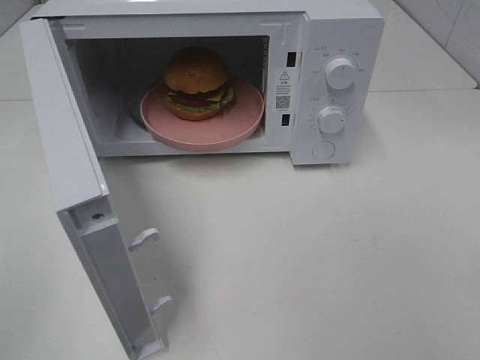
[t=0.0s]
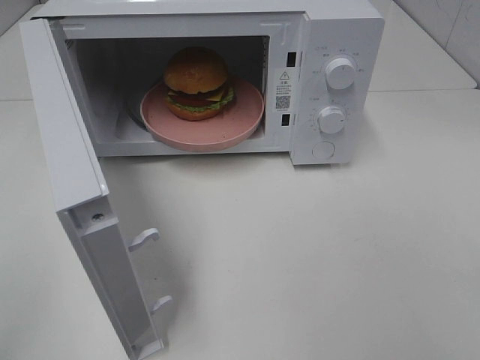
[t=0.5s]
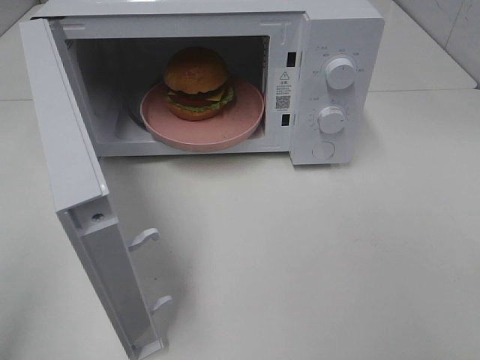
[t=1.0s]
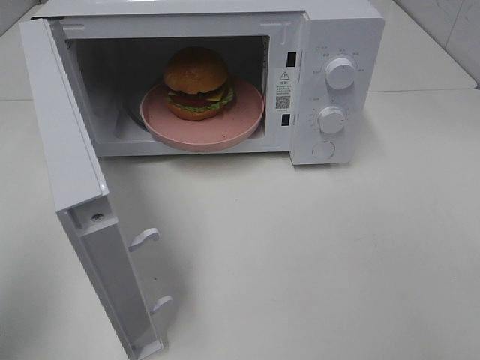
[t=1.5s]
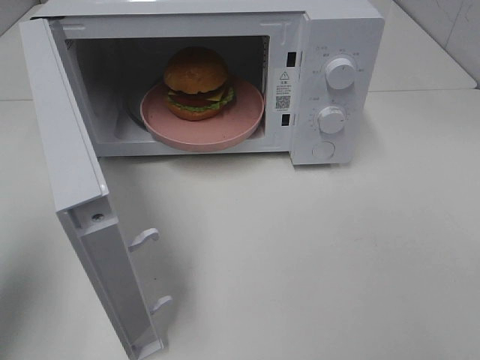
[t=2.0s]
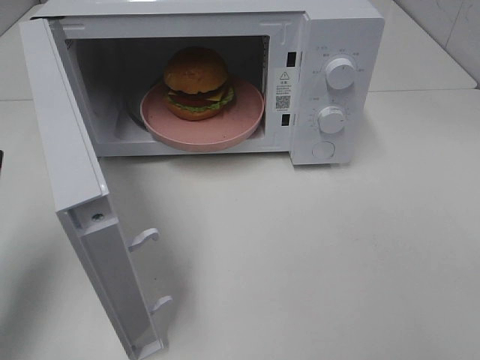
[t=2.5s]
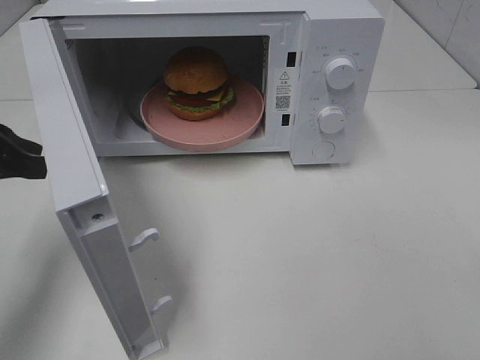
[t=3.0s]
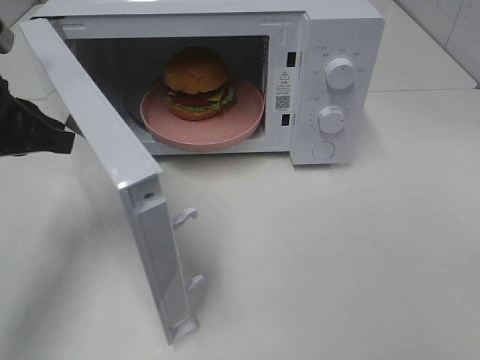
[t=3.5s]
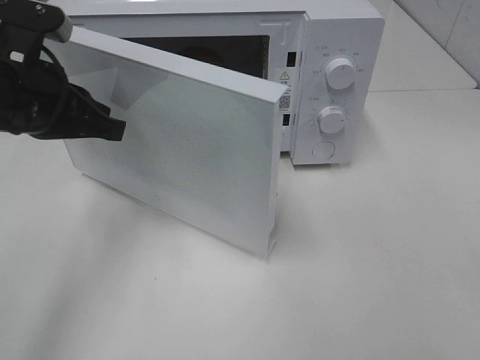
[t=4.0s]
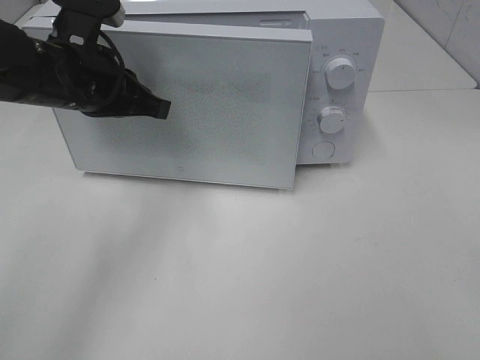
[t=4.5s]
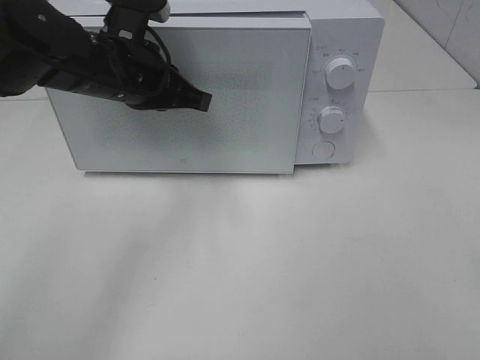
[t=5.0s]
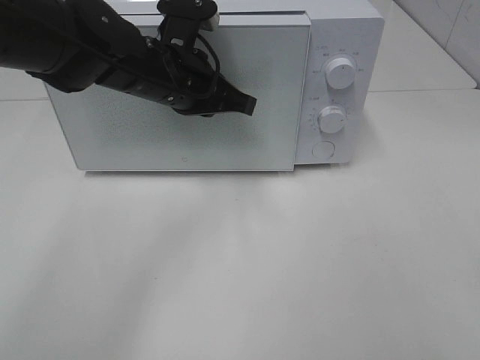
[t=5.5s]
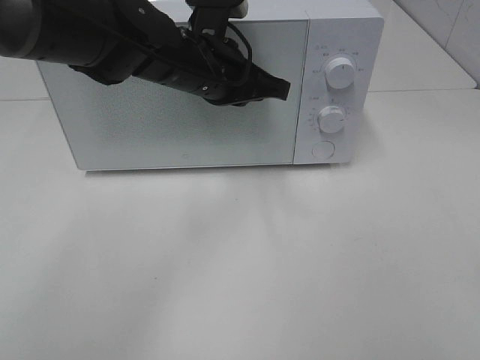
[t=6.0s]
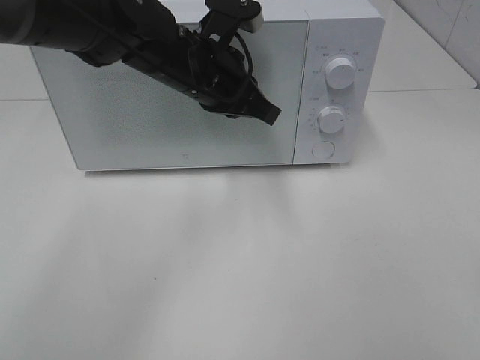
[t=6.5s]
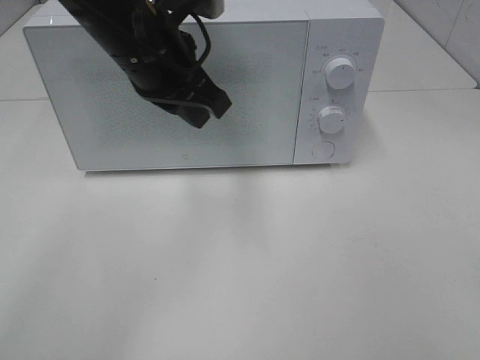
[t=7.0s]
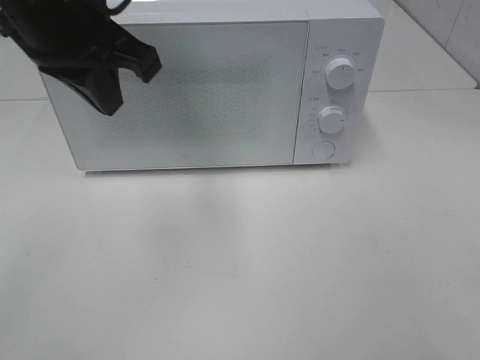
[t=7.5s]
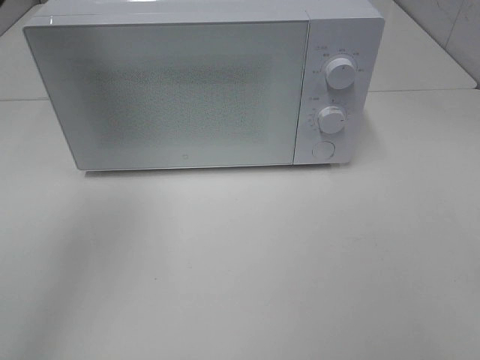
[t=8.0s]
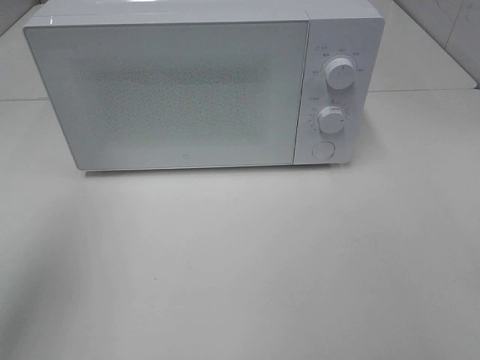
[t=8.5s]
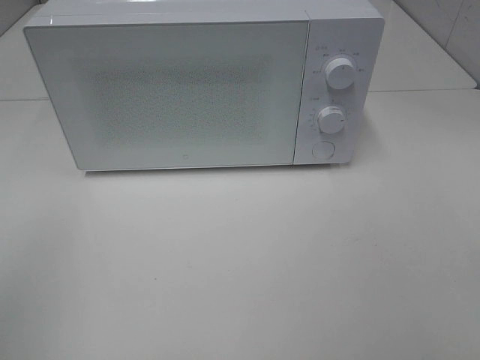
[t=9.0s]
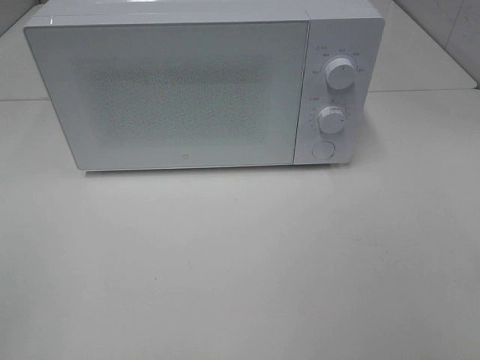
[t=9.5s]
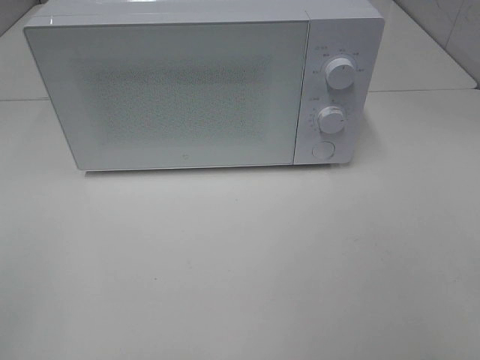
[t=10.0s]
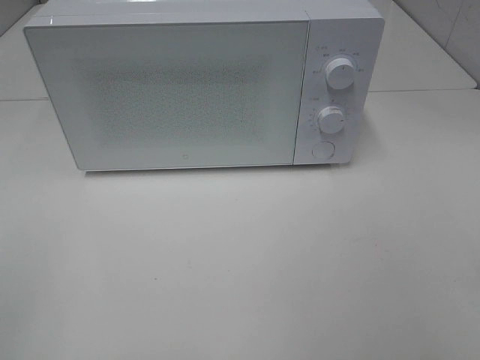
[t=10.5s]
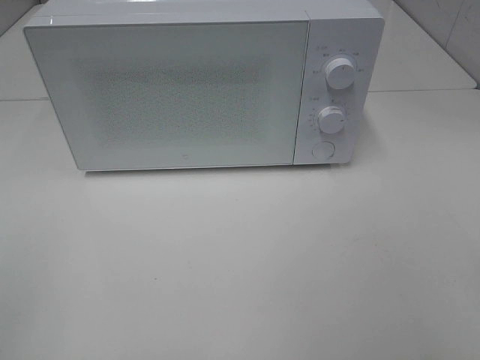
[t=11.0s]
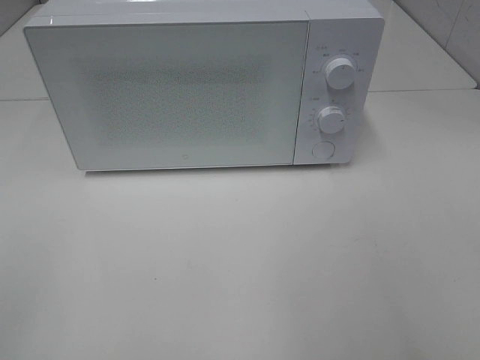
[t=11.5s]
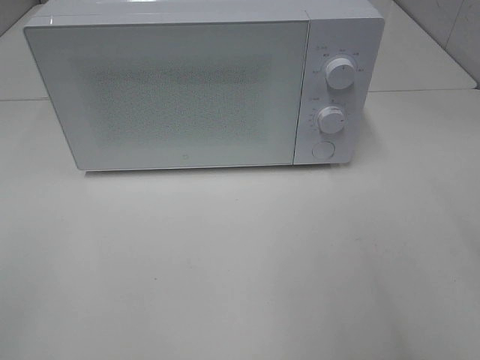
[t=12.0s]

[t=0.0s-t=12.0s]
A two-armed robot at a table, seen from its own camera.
Task of the whole recording: Heat the burger.
Step, t=0.0s to t=6.0s: Left hand: close the microwave door.
t=0.0s to t=2.0s: The left gripper shifts some 15 cm forward.
t=2.0s to t=4.0s: The left gripper goes about 15 cm forward and to the right.
t=4.0s to t=6.0s: The left gripper is displaced to the right and forward by approximately 20 cm.
t=6.0s to t=8.0s: The left gripper goes approximately 30 cm to the left, upward and backward.
t=8.0s to t=10.0s: The left gripper moves backward, about 25 cm.

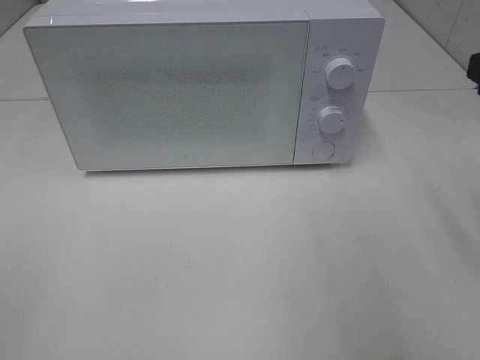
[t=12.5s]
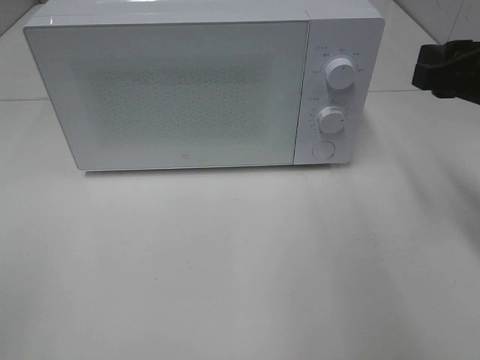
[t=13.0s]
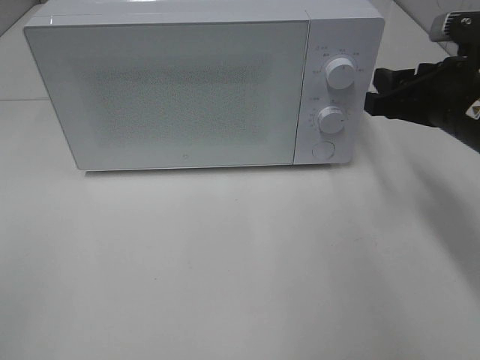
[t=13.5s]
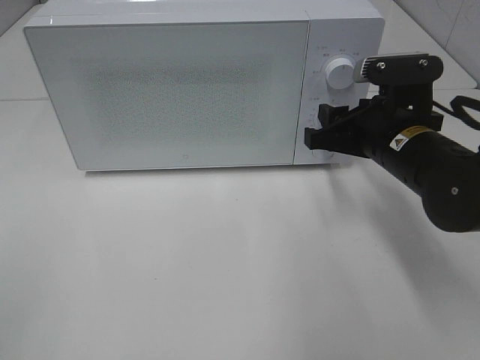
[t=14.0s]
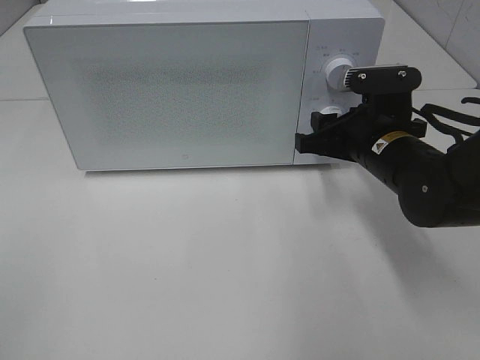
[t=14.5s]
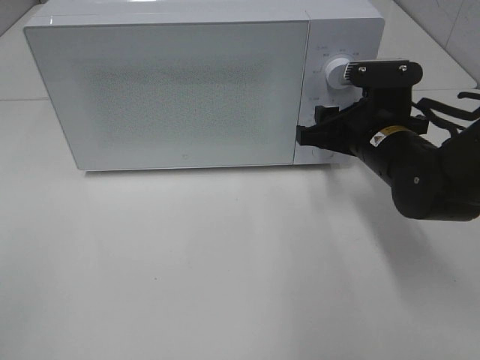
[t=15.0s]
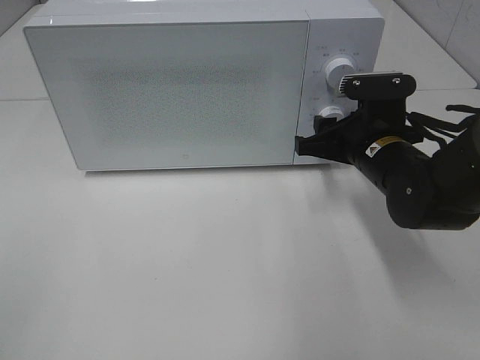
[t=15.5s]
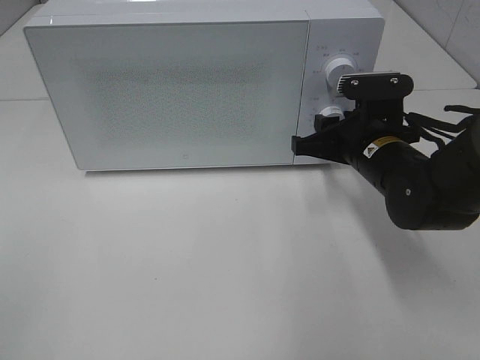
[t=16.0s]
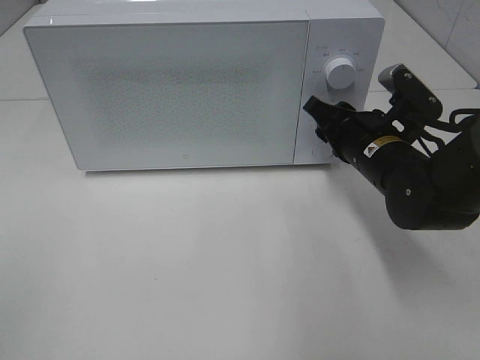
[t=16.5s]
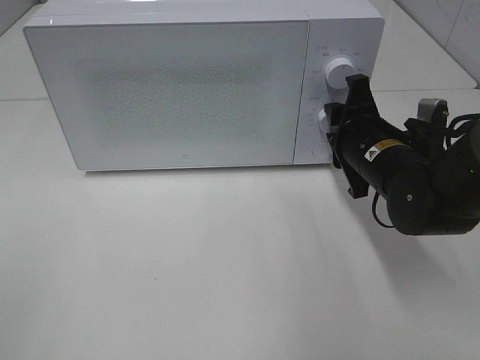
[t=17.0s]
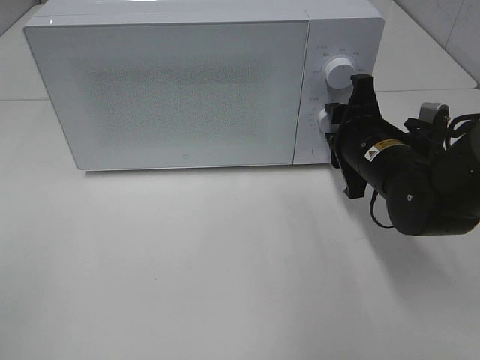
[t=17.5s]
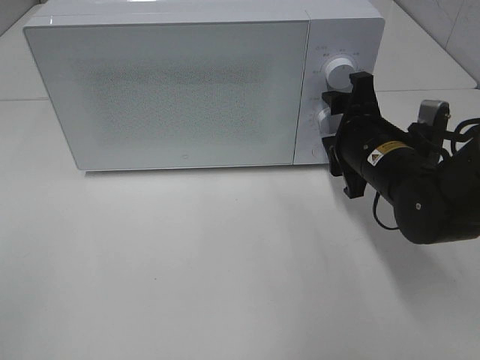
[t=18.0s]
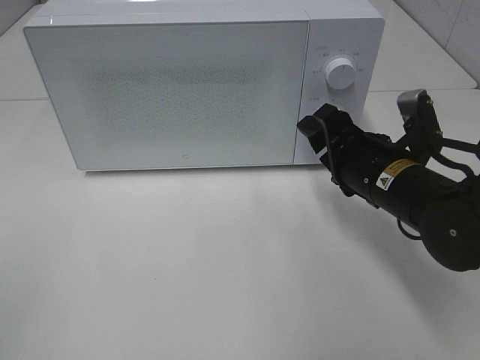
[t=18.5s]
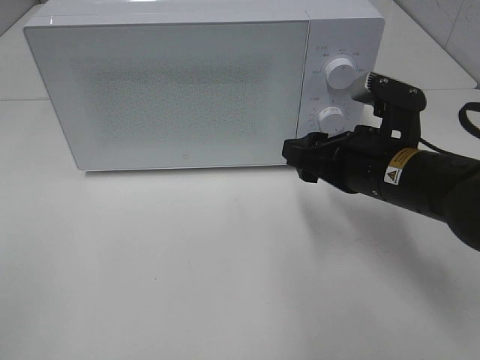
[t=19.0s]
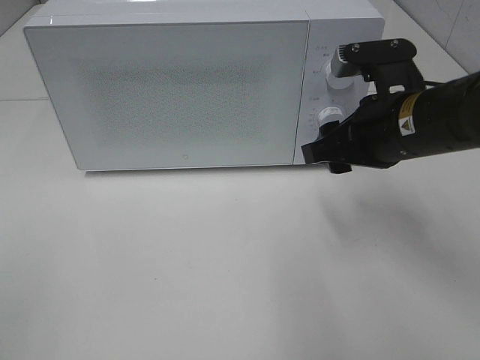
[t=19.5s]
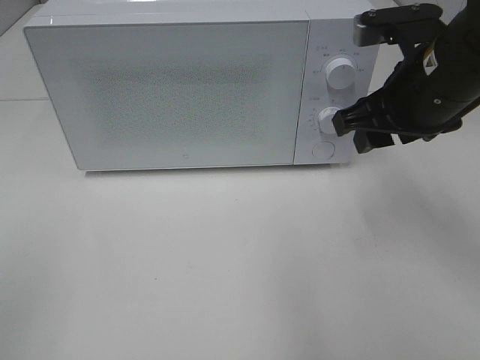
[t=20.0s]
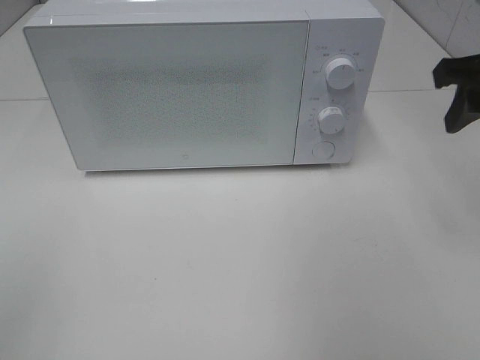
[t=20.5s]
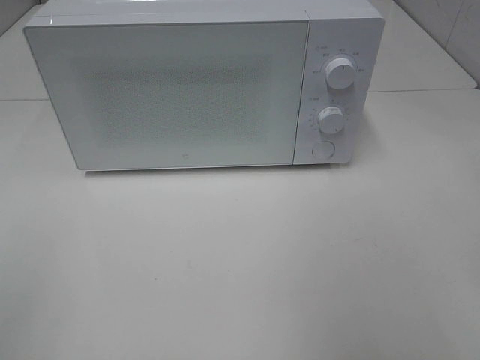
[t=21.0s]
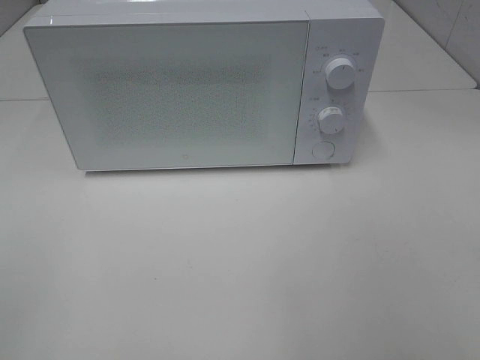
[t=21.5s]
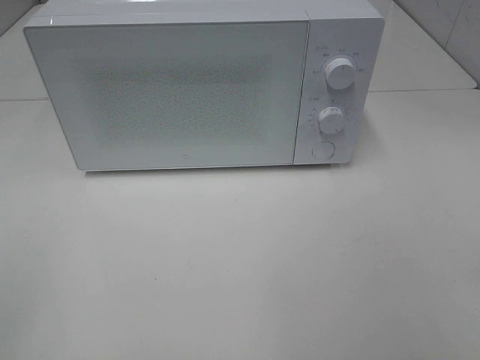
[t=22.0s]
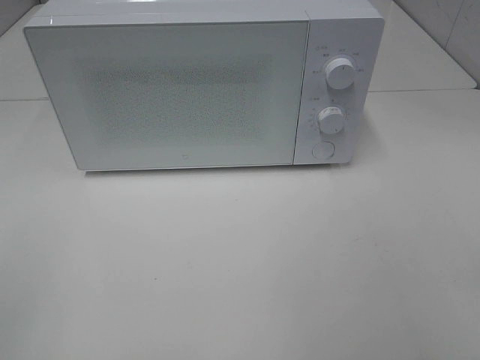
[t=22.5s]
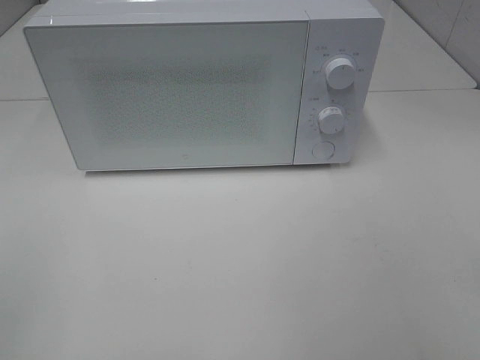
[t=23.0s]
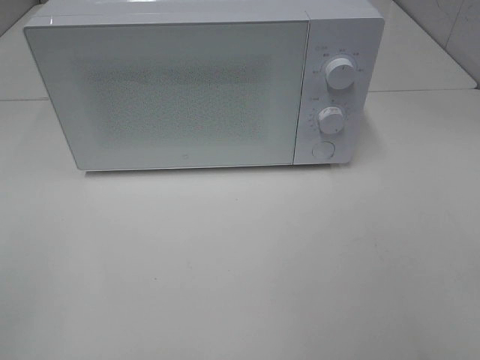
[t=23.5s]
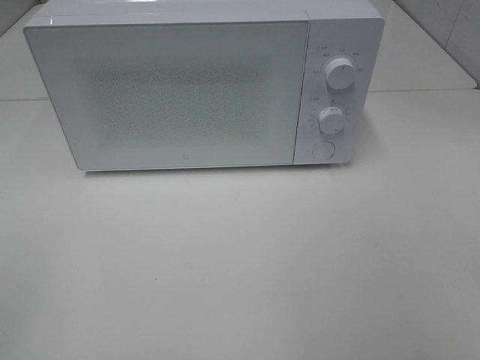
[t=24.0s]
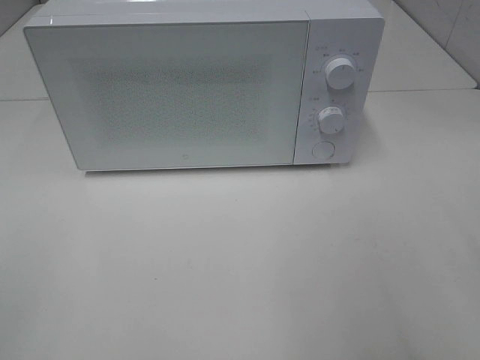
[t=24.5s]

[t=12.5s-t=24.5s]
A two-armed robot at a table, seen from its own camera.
Task of the whole recording: Heat the burger.
Step, t=12.5s to t=17.5s: Right hand: twist timer button.
t=12.5s to t=14.5s: The right gripper travels downward, forward and to the left by some 20 cm.
t=18.5s to t=20.5s: The right gripper moves upward and to the right, about 20 cm.
t=20.5s to t=22.5s: The right gripper travels backward by approximately 30 cm.

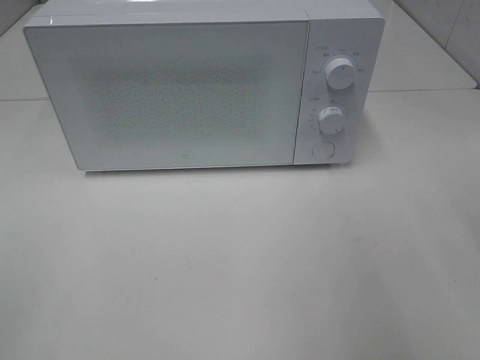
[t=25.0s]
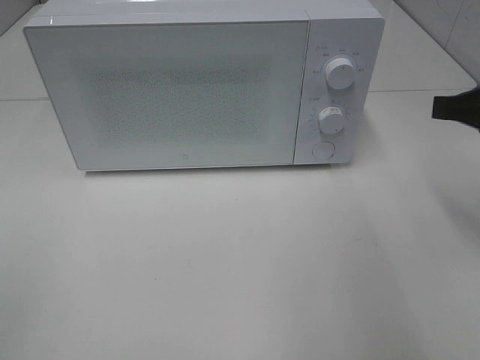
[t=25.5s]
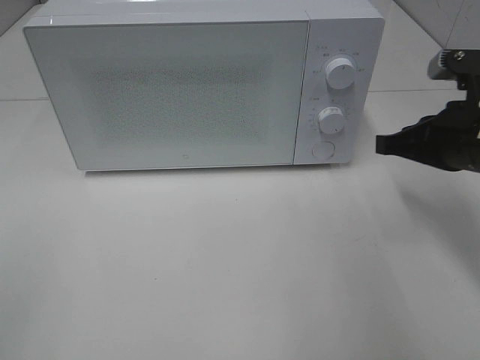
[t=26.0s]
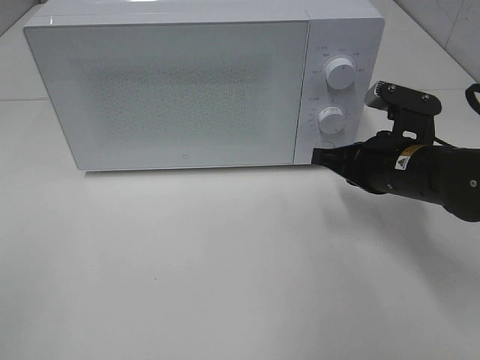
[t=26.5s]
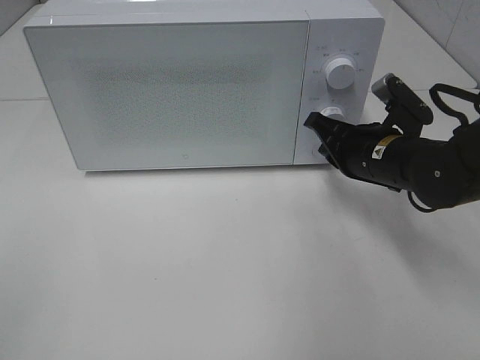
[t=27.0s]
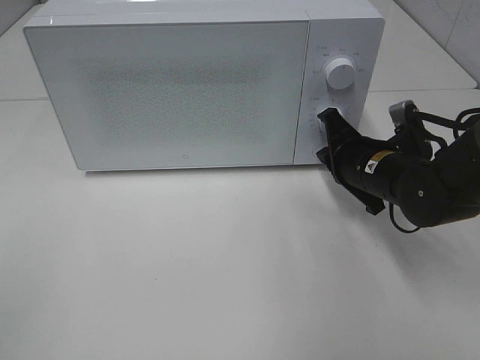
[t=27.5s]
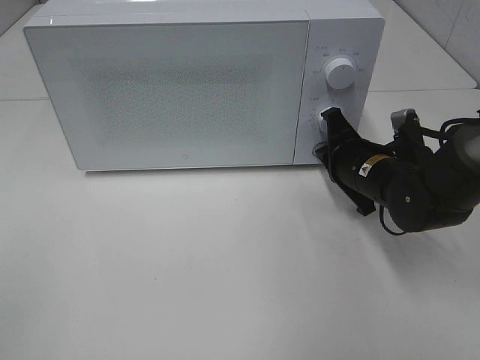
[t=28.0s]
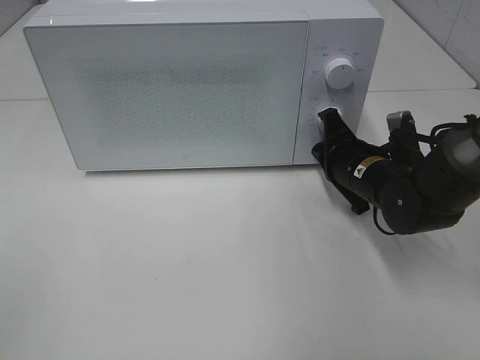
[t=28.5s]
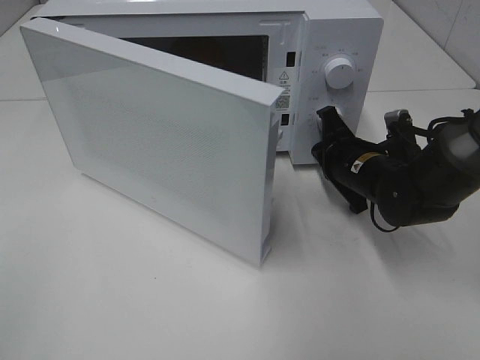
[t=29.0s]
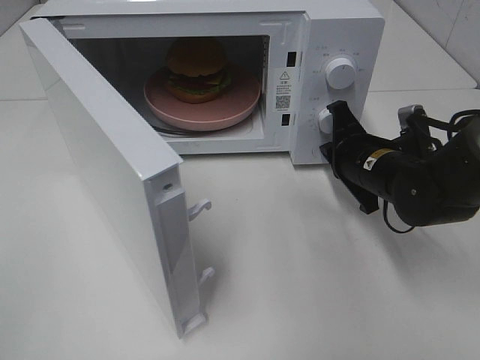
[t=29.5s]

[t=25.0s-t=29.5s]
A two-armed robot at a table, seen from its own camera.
Task of the whole recording: Heat the burger.
t=25.0s to t=27.0s: The right gripper goes about 25 cm downward, forward and to the left.
